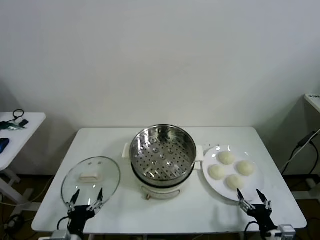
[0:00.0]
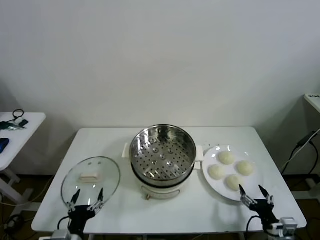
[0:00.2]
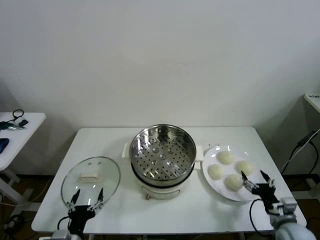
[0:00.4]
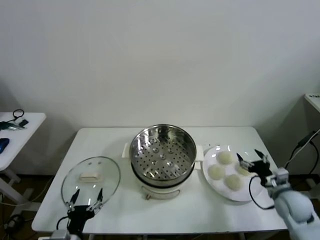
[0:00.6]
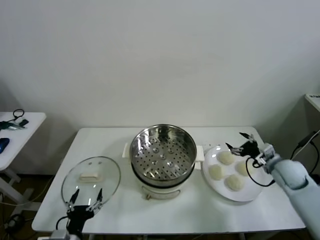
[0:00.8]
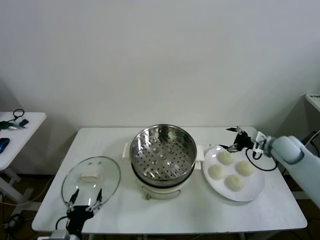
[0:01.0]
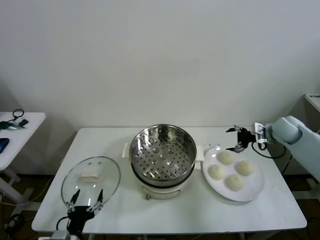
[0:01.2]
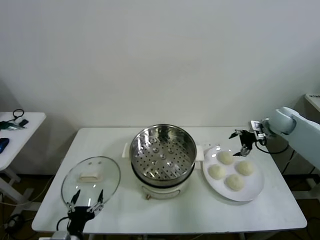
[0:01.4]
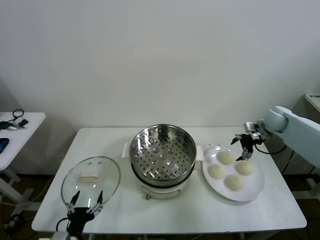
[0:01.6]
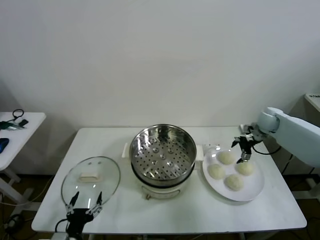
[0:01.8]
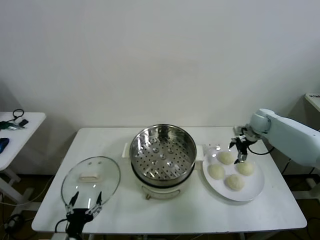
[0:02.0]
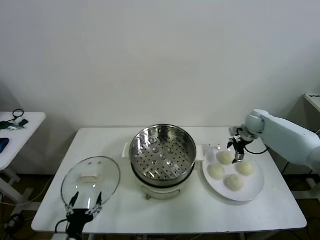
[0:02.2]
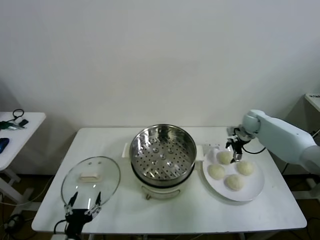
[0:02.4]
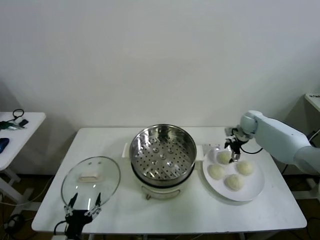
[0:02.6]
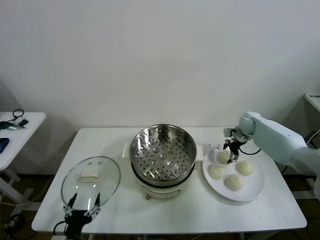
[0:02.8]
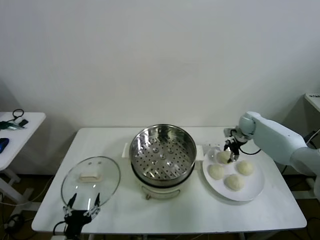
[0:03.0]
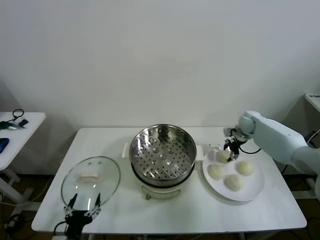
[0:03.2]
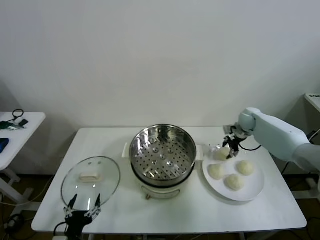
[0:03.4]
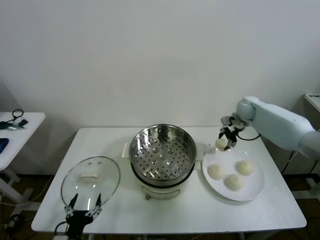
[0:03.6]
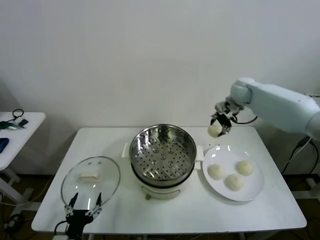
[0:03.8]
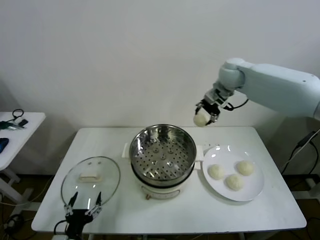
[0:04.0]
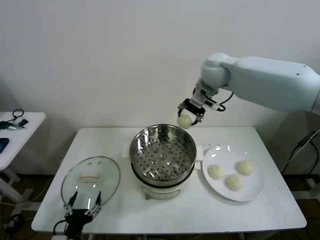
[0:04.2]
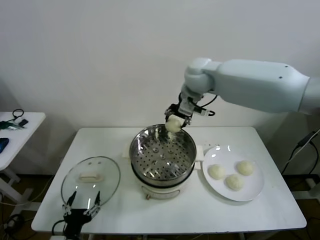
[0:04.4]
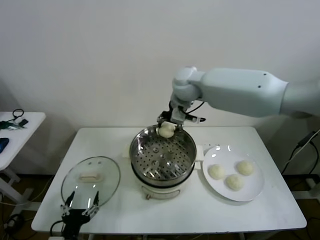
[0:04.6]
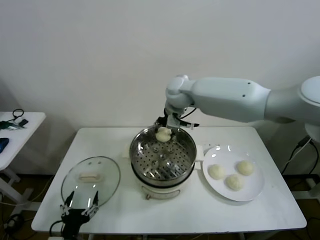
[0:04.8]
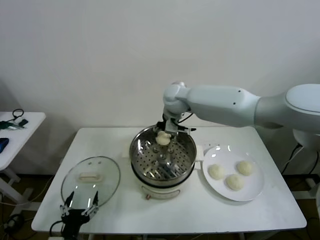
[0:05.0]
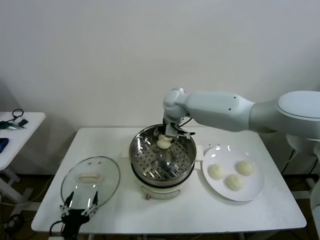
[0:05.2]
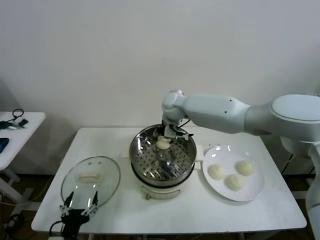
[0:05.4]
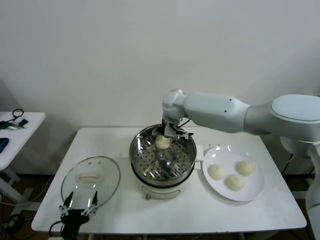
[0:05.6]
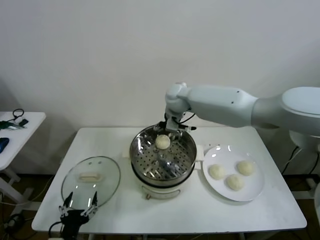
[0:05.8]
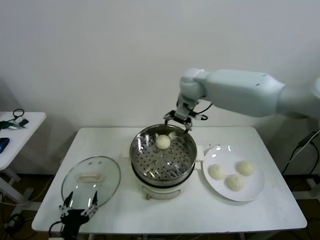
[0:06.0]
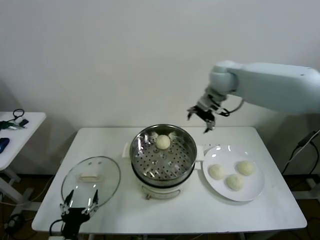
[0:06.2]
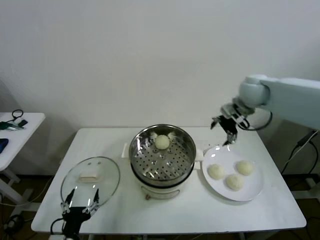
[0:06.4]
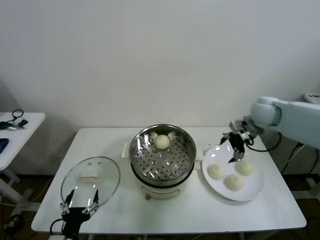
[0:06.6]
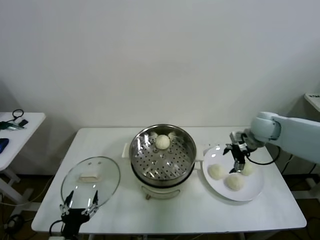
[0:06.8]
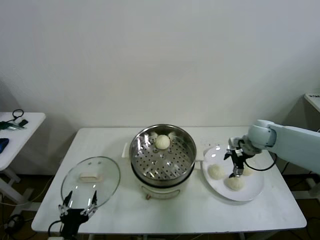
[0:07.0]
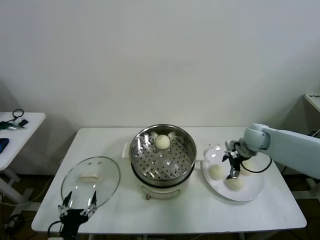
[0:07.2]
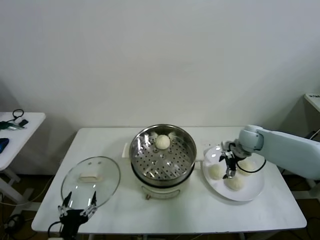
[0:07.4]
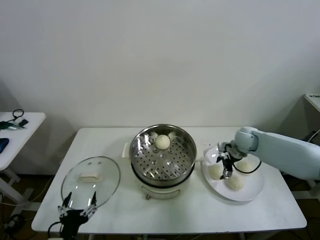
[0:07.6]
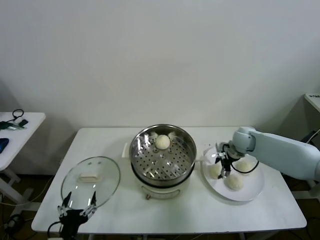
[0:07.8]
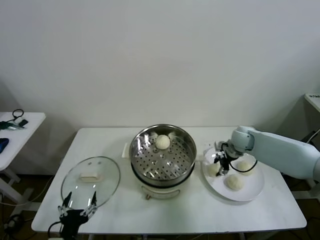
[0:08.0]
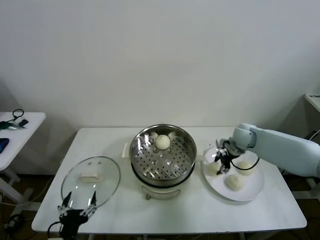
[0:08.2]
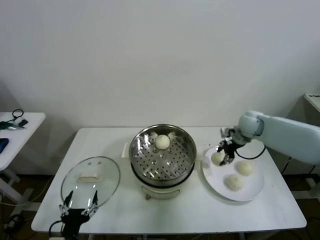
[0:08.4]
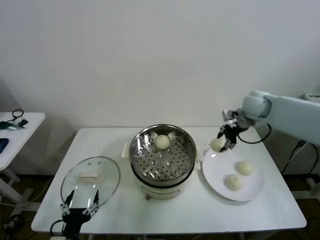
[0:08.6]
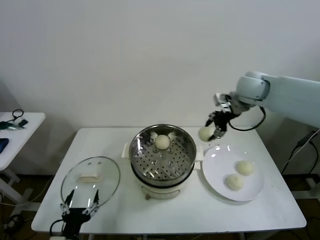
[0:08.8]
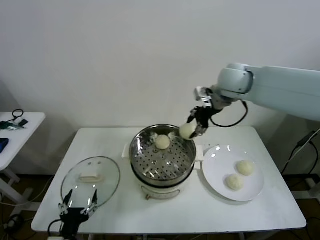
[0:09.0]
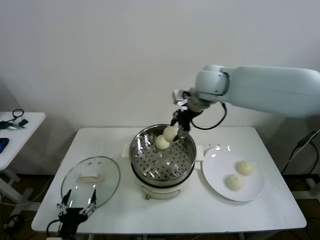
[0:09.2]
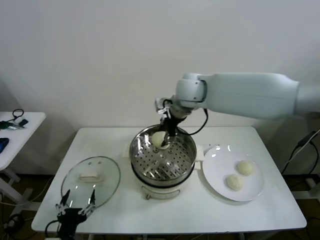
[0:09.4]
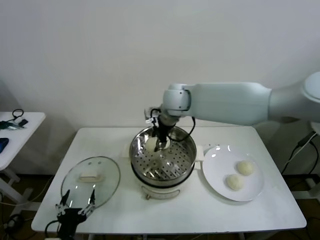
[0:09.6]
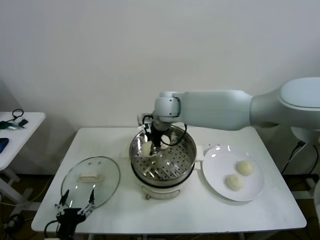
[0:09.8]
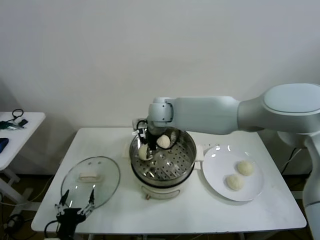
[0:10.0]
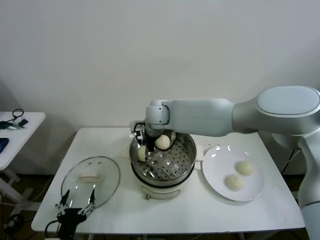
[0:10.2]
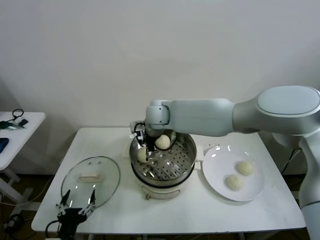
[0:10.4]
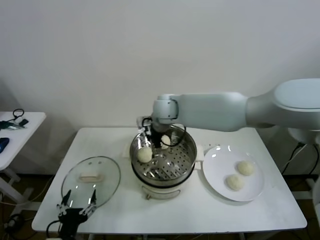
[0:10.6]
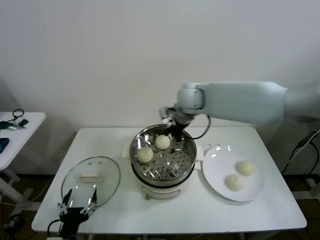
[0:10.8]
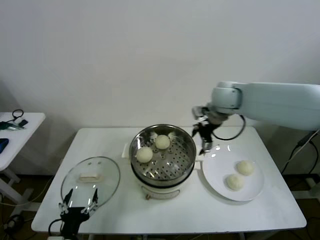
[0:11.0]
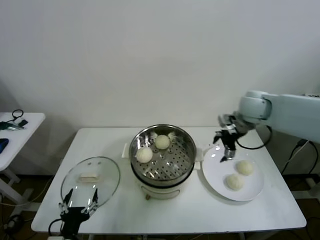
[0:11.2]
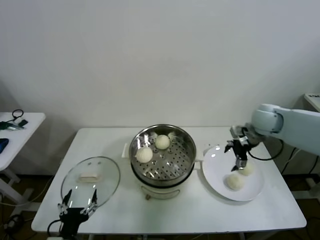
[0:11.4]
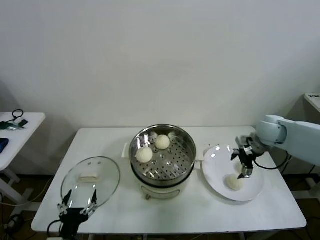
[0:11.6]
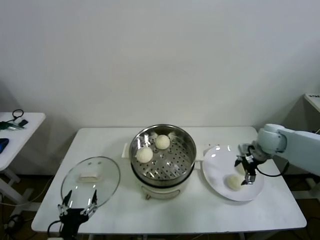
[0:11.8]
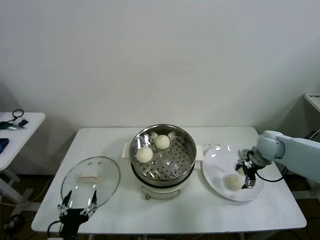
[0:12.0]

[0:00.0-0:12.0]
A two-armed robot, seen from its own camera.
Task of the whole recording: take steamed baozi put them in steamer then cover it.
Step, 0:00.0 to 0:03.2: Grasp the baozi in the plate with right gripper.
Step, 0:03.4 to 0:05.6: Place the baozi on the steamer with right gripper.
Step, 0:05.8 to 0:08.0: Grasp the baozi in the plate with right gripper.
Step, 0:08.2 to 0:10.2: Place the baozi on the steamer with right gripper.
0:01.6 to 0:03.0: The right gripper heads downward, covering about 5 cm, and closes its fingers.
0:03.0 to 0:04.4: The right gripper is displaced to the left and upward by roughly 35 cm.
0:04.4 to 0:06.0: The right gripper reaches some 10 cm downward, then returns, and opens up.
0:06.0 to 0:07.6: The right gripper is displaced downward and to the right by approximately 30 cm.
0:07.6 to 0:09.0: The right gripper moves upward and to the left, roughly 30 cm, and closes its fingers.
0:09.0 to 0:10.4: The right gripper moves to the left and downward, some 25 cm, and opens.
0:10.4 to 0:12.0: The right gripper goes about 40 cm to the right.

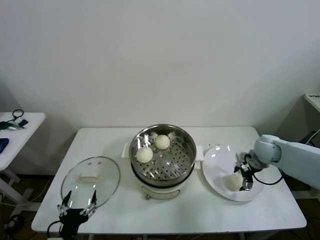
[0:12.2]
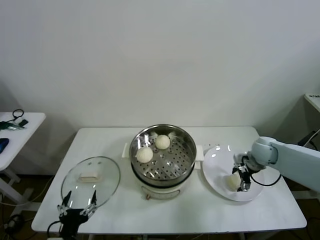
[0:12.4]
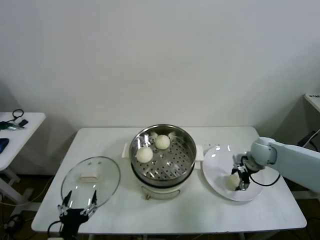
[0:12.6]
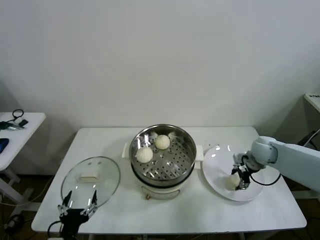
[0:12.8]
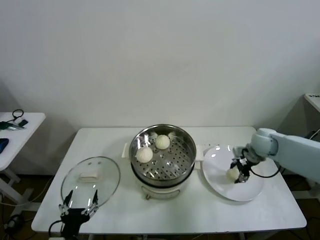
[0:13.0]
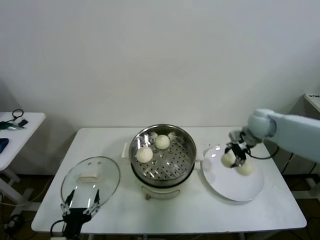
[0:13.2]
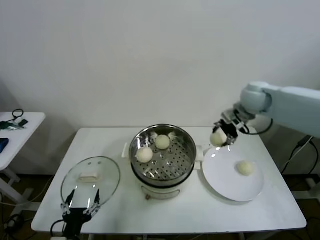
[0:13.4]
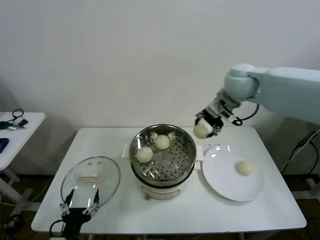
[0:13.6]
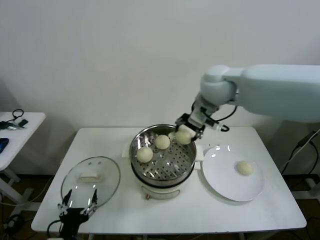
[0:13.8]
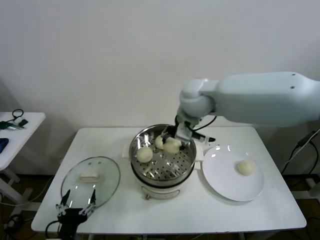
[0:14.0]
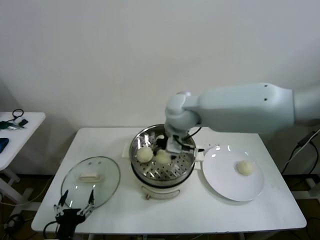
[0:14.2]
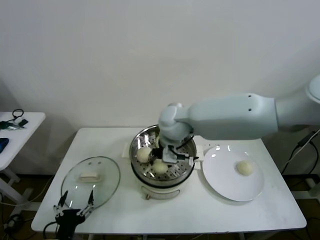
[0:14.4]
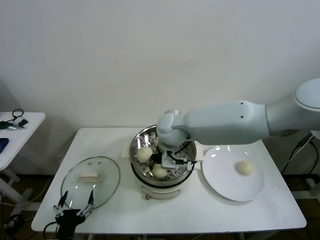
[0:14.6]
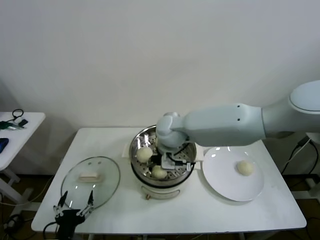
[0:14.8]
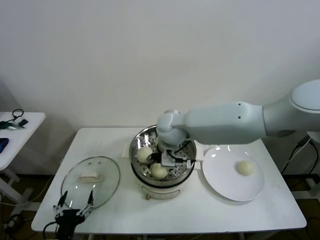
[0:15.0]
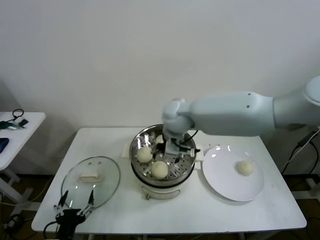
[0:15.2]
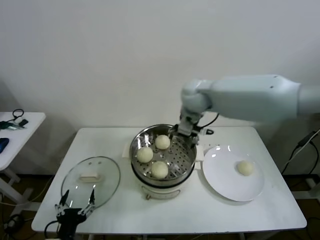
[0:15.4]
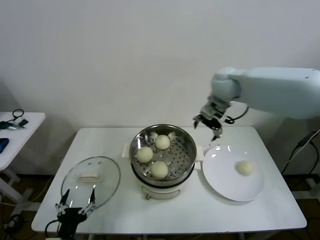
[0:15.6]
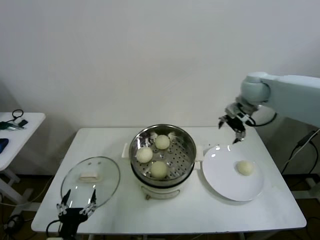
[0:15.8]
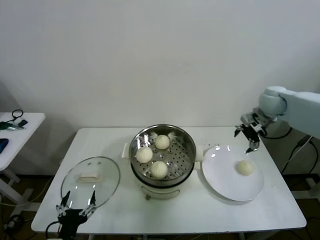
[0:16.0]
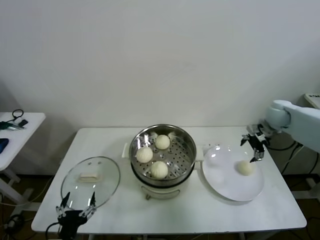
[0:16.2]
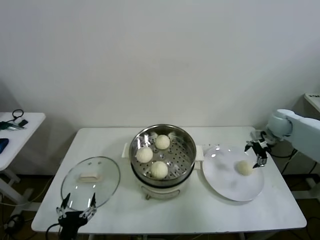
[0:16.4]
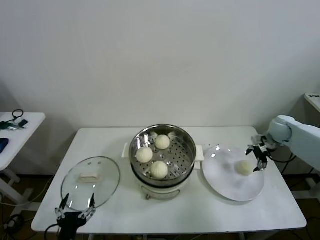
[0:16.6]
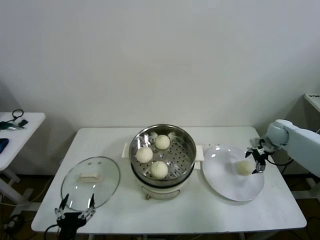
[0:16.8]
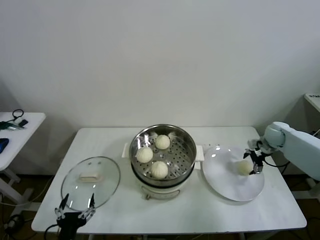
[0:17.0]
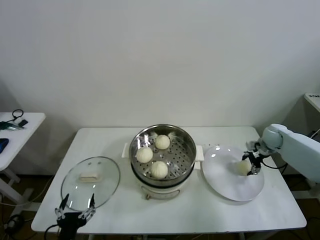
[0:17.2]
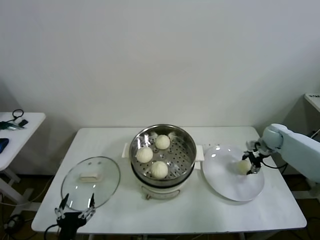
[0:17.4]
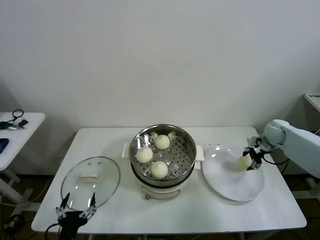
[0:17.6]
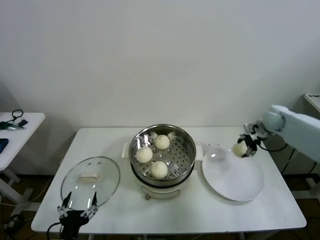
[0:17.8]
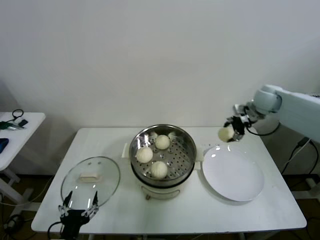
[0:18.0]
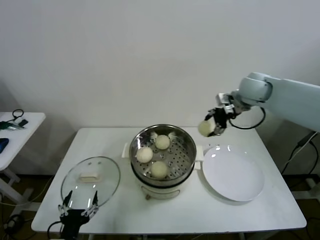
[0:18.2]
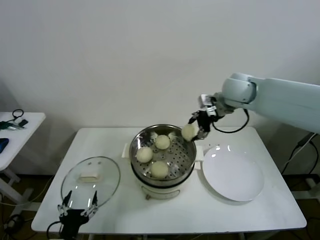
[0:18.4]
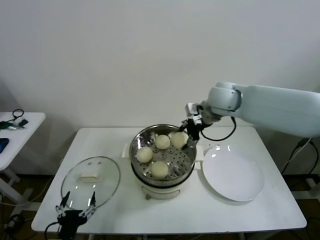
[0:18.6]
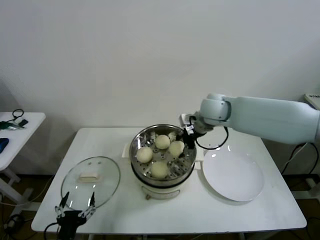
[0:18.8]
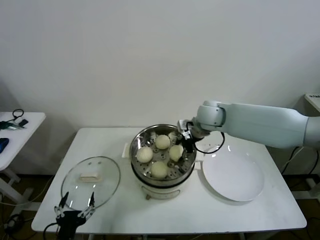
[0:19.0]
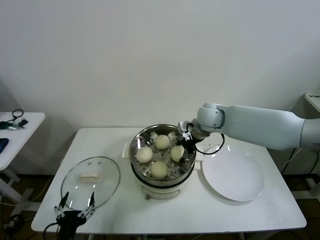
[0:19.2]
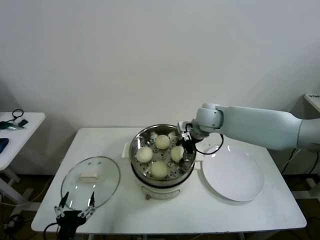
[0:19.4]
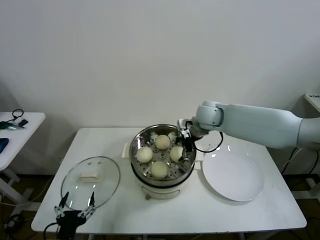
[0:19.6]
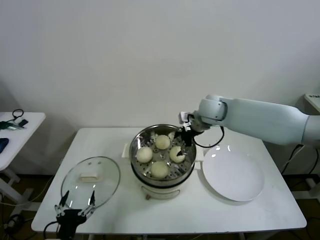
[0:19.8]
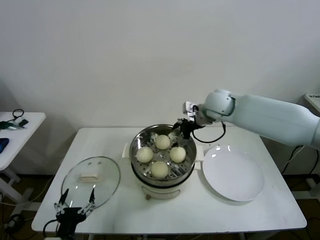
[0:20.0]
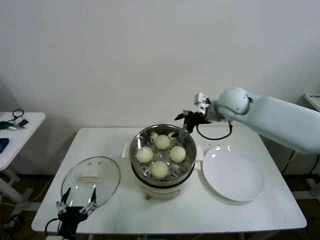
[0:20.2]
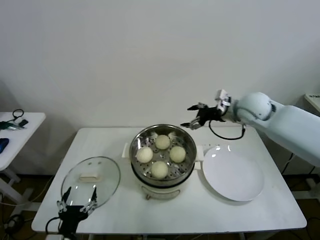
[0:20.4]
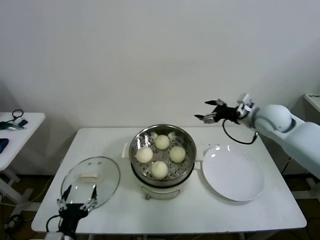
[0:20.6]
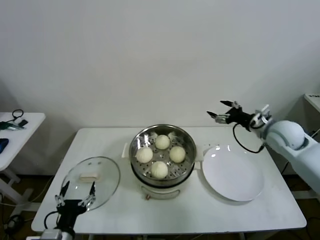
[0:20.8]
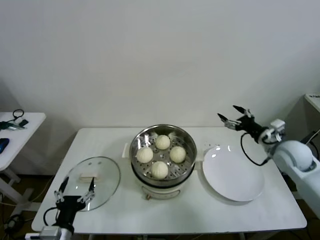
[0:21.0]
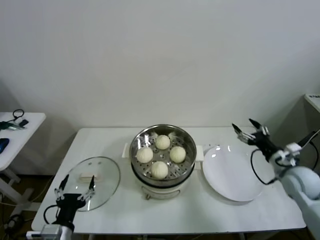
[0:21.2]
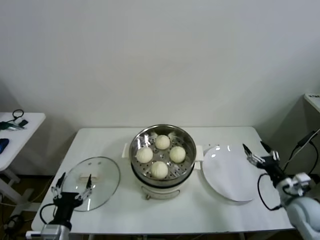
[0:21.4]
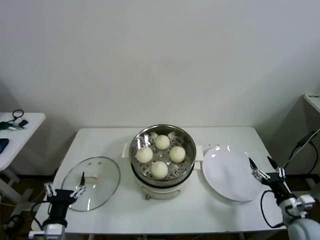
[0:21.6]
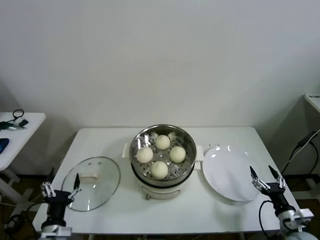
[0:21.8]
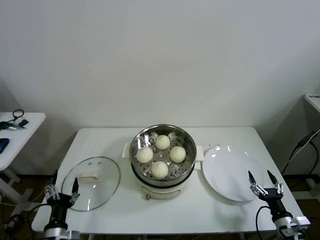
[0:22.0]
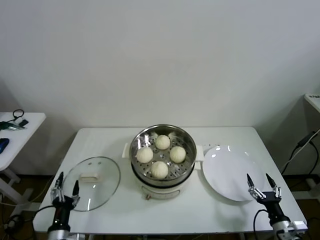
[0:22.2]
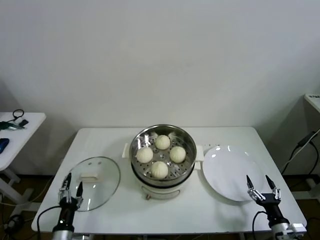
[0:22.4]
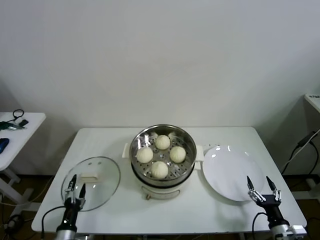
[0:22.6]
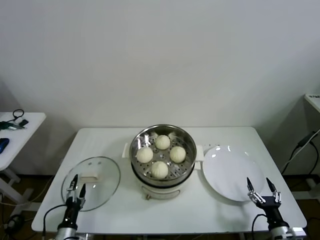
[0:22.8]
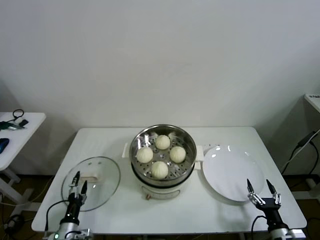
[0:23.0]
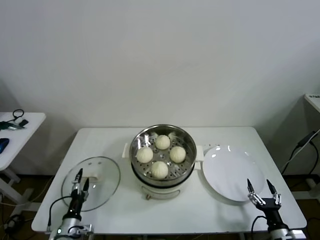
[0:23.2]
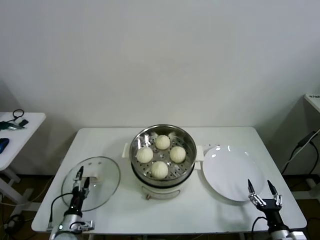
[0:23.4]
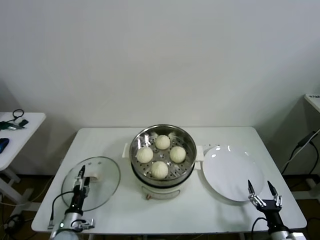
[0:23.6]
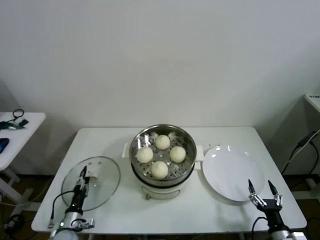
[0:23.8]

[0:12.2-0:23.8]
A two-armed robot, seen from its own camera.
Task of the whole recording: take steamed baozi put them in steamer then cover it.
Step, 0:13.0 to 0:15.0: Place the baozi on the steamer with right gripper.
Step, 0:15.2 to 0:17.6: Grasp the baozi in the plate with right gripper.
Step, 0:17.8 to 0:19.6: Place the baozi on the steamer with right gripper.
0:12.2 to 0:13.6: The right gripper shifts roughly 30 cm upward and to the left, and closes its fingers.
0:13.6 to 0:15.0: The right gripper travels to the left and downward by approximately 20 cm, and opens its fingers.
0:15.0 to 0:16.6: The right gripper is displaced to the right by roughly 40 cm.
0:16.6 to 0:18.0: The right gripper moves upward and to the left, about 15 cm, and closes.
0:18.0 to 0:19.4: The right gripper shifts some 20 cm to the left.
0:19.4 to 0:21.0: The right gripper heads to the right and backward, covering roughly 25 cm, and opens up.
0:21.0 to 0:22.4: The left gripper travels downward by roughly 10 cm; the right gripper heads backward and downward, covering approximately 35 cm.
0:22.4 to 0:23.8: The left gripper shifts approximately 10 cm forward and downward.
